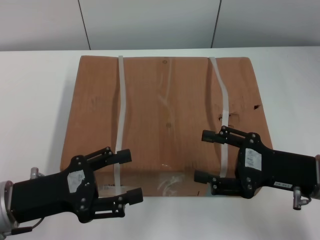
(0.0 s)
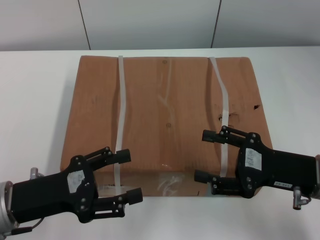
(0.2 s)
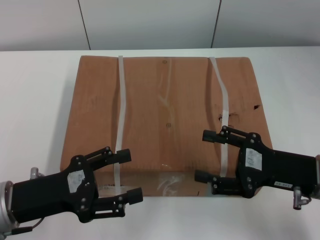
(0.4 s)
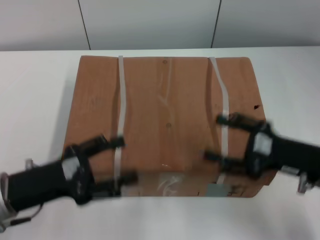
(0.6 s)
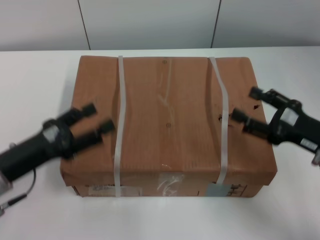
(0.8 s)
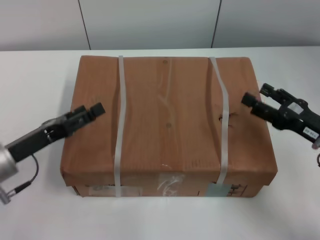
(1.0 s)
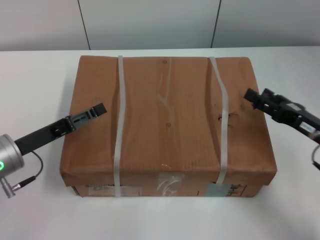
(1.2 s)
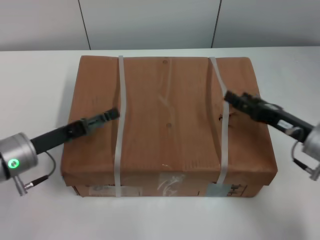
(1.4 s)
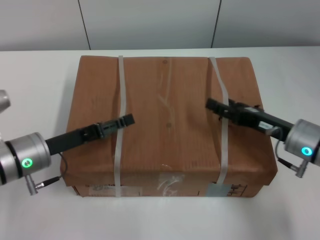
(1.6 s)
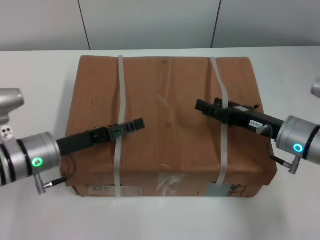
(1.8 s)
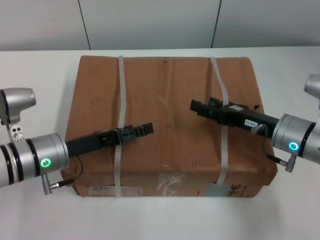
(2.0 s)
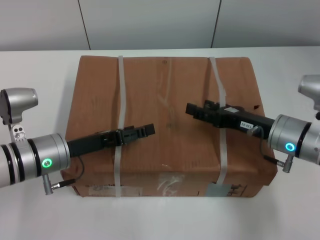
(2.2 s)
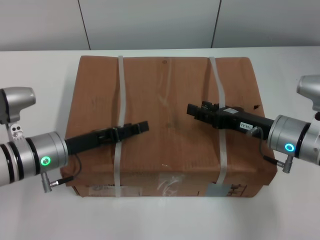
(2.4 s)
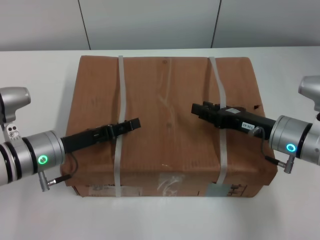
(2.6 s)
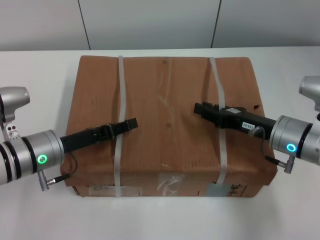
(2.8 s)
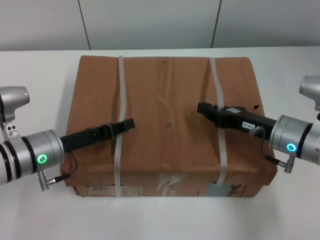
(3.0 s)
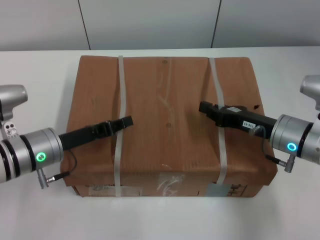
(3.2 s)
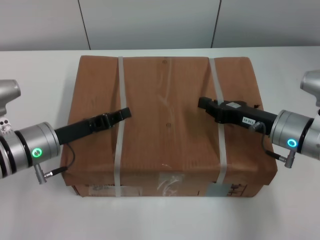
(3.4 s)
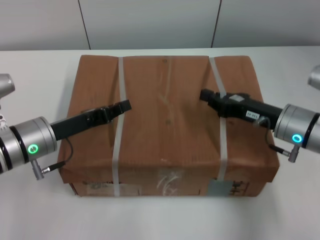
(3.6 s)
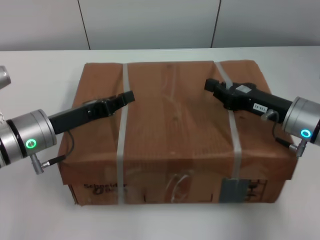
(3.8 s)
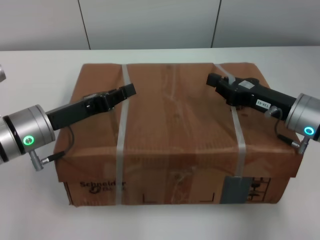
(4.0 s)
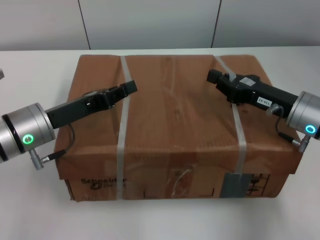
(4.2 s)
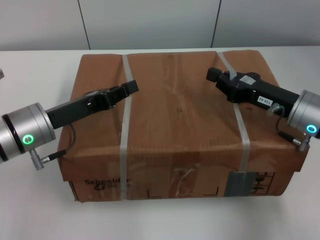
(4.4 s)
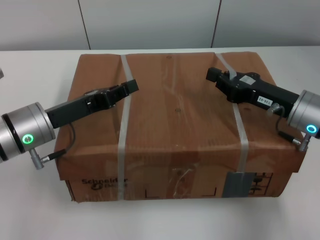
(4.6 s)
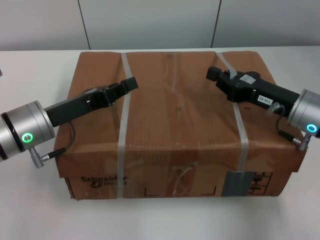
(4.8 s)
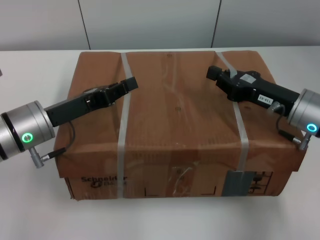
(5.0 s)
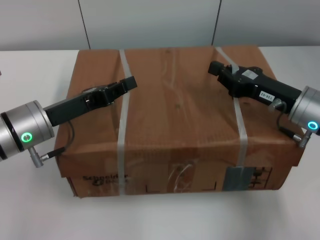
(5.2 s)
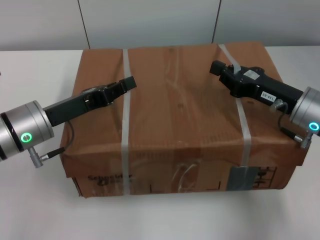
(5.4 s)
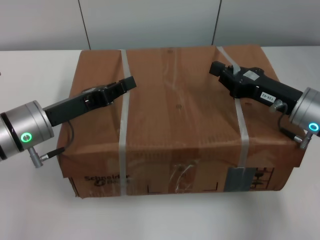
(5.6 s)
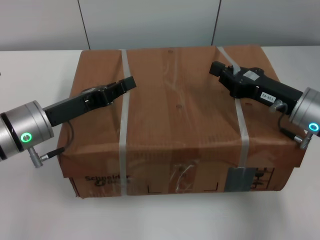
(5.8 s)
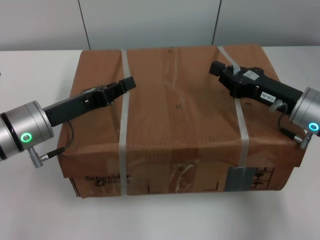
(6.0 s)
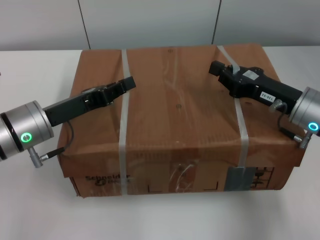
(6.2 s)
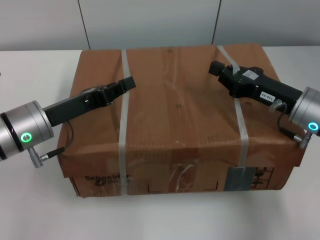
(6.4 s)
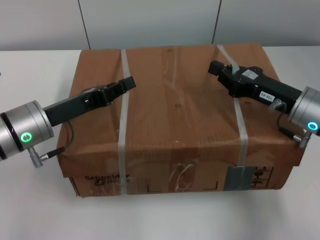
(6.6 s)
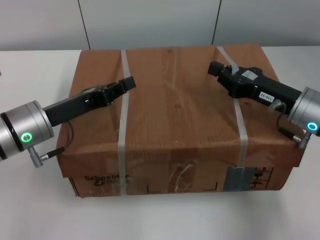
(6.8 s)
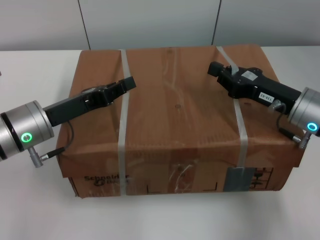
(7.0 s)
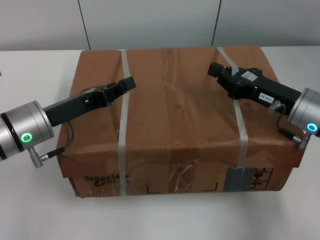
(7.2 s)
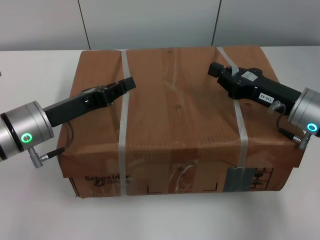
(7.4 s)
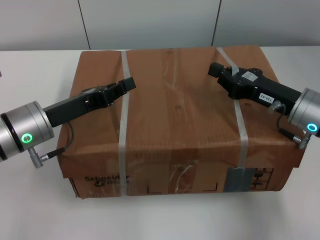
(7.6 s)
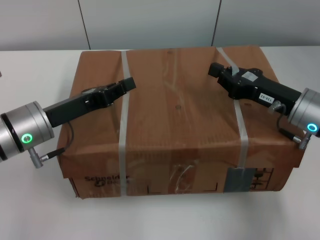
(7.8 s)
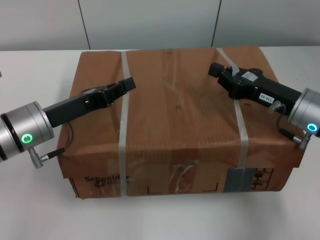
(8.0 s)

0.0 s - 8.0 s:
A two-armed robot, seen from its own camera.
Task of the whole recording: pick up the box from the table with both arms.
Step, 0.0 s - 3.0 s: Grasp the bandage with left gripper.
Step, 0.0 s - 3.0 s: Grasp the bandage with right gripper.
Step, 3.2 s - 5.2 s: Lift the box with left gripper.
Step, 3.2 s - 5.2 s: Lift the box with right gripper.
0.0 s - 1.6 s: The two grippers go some 10 cm forward.
1.6 s - 3.2 s: The right gripper closes its fingers, while the left gripper closes its fingers.
4.8 s - 8.0 s: The two grippers keep their place.
